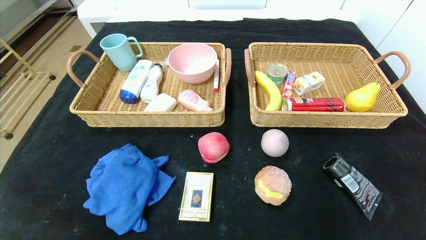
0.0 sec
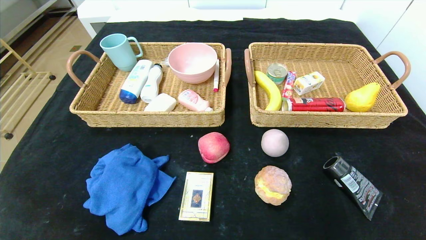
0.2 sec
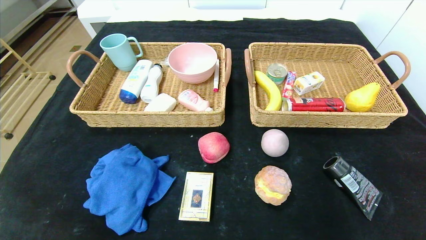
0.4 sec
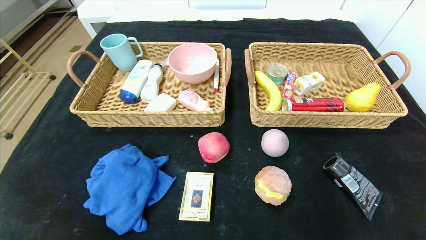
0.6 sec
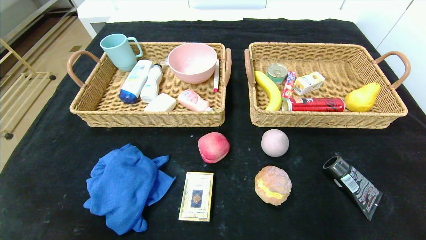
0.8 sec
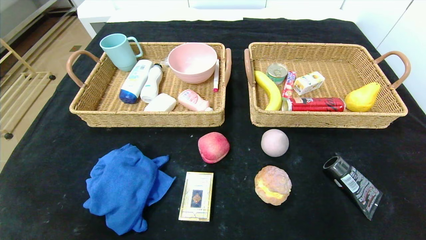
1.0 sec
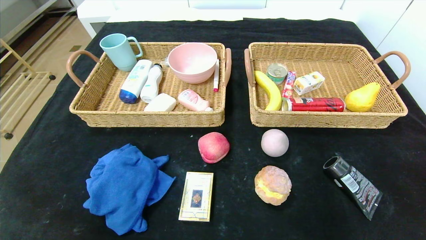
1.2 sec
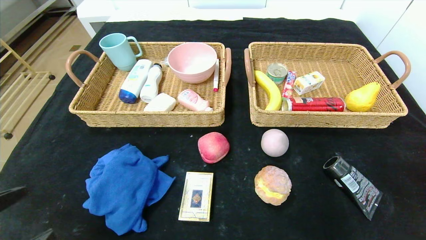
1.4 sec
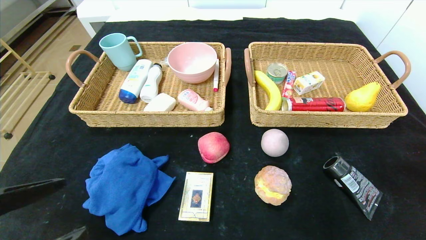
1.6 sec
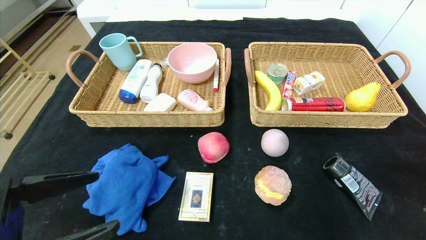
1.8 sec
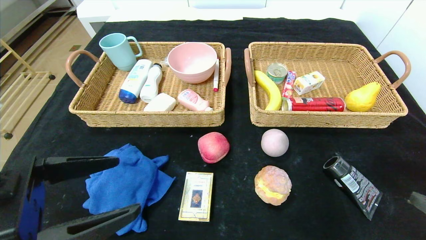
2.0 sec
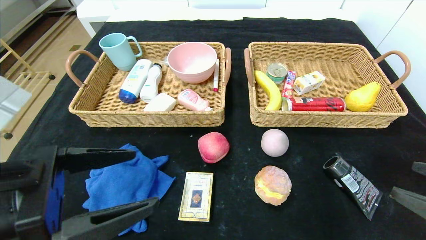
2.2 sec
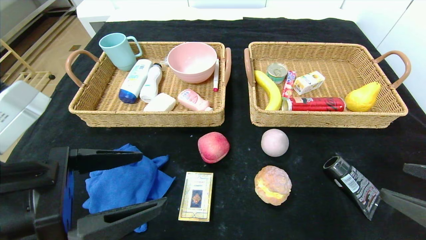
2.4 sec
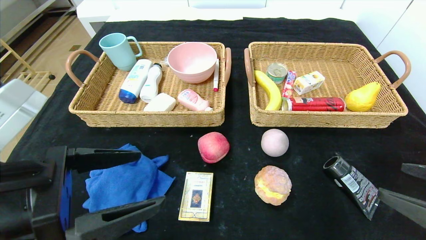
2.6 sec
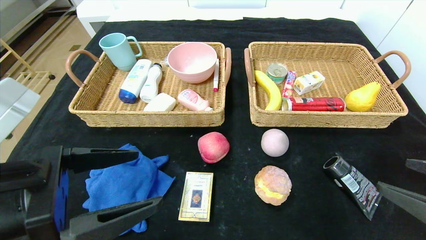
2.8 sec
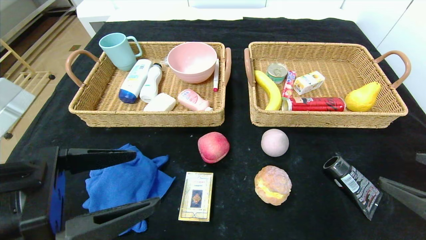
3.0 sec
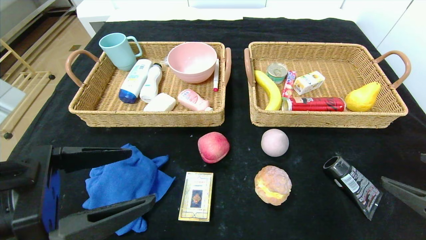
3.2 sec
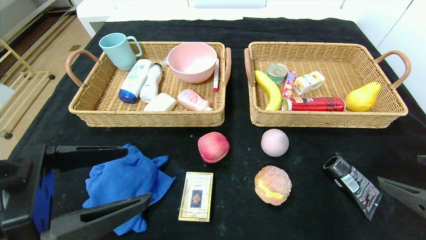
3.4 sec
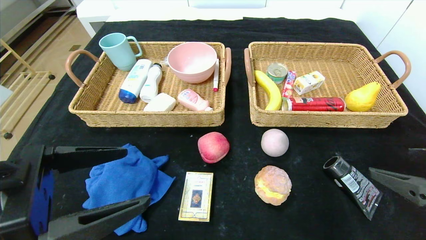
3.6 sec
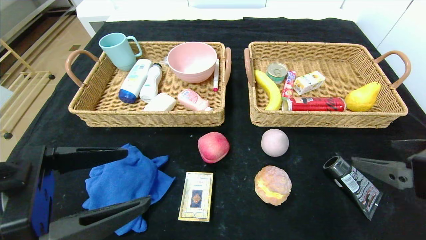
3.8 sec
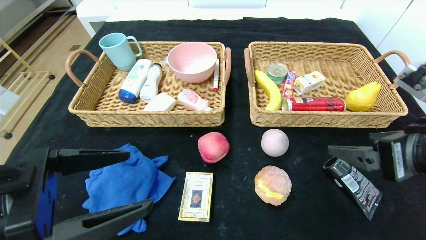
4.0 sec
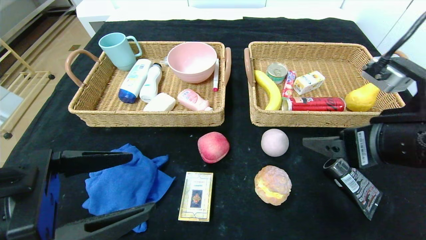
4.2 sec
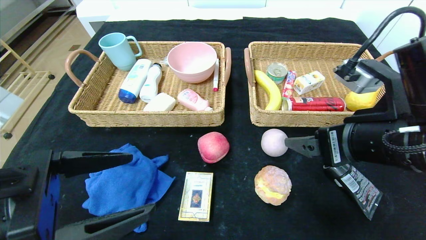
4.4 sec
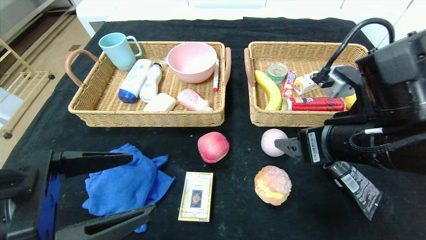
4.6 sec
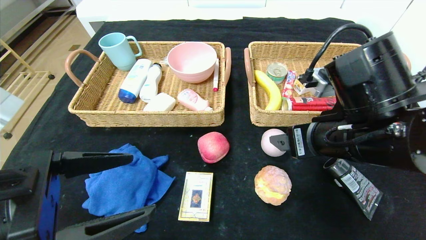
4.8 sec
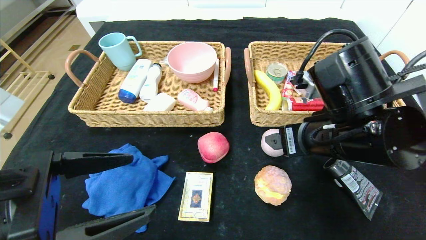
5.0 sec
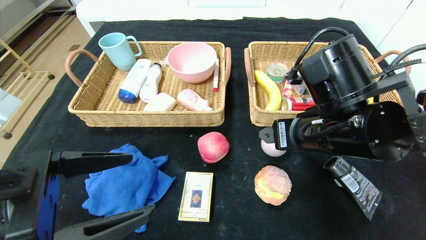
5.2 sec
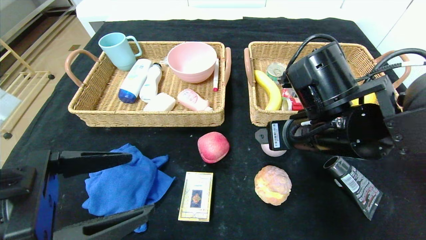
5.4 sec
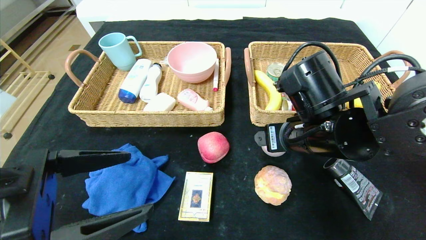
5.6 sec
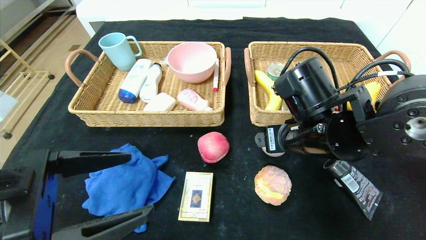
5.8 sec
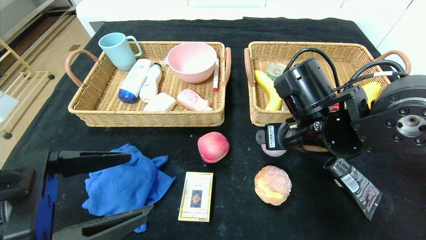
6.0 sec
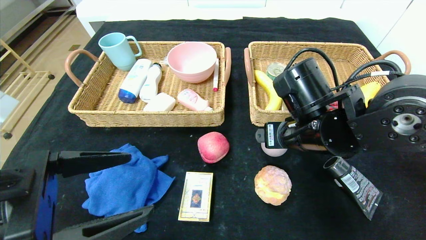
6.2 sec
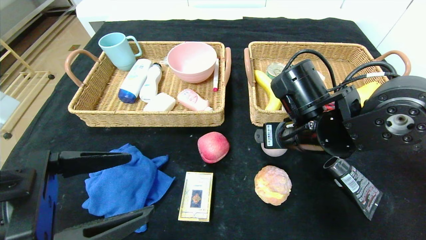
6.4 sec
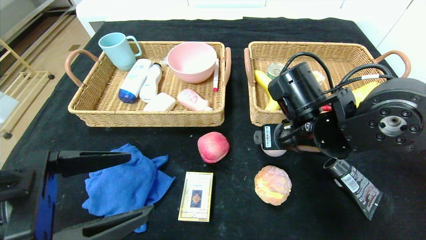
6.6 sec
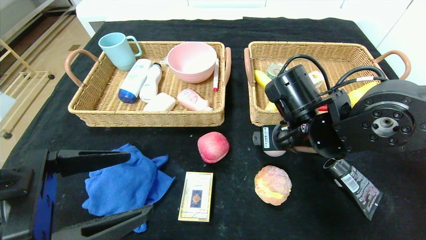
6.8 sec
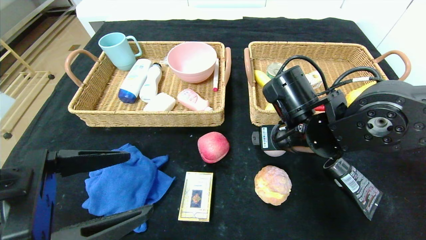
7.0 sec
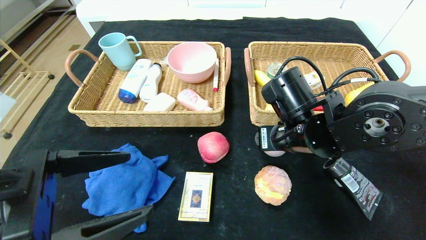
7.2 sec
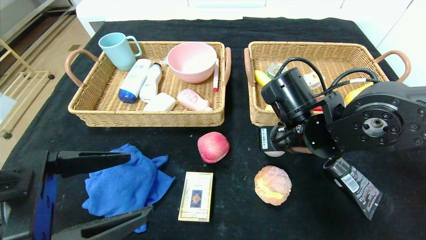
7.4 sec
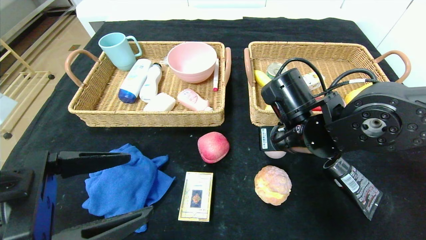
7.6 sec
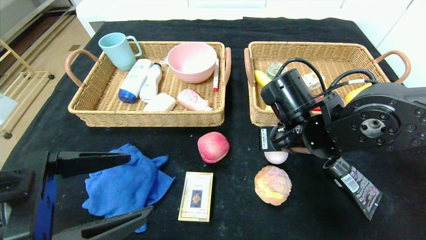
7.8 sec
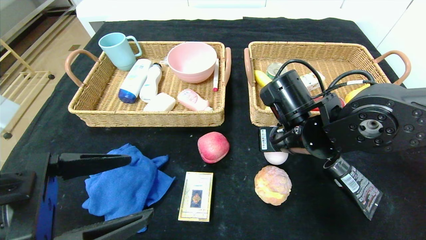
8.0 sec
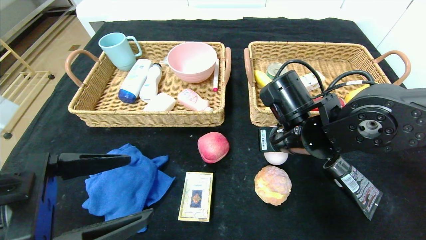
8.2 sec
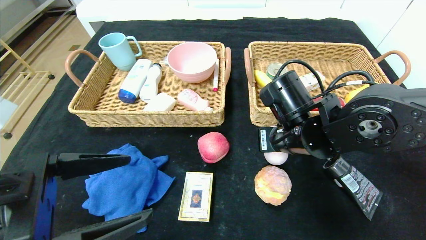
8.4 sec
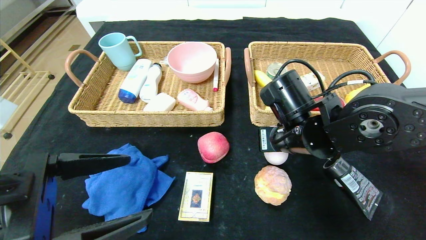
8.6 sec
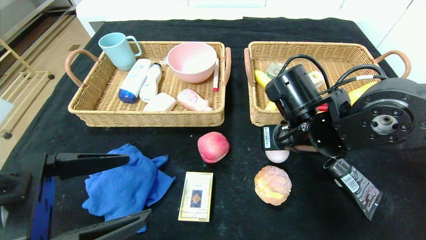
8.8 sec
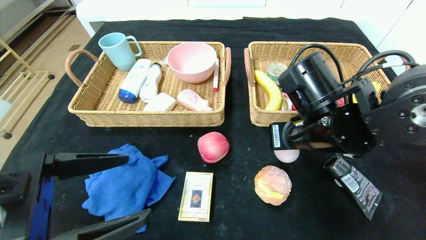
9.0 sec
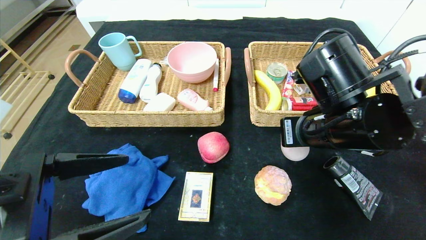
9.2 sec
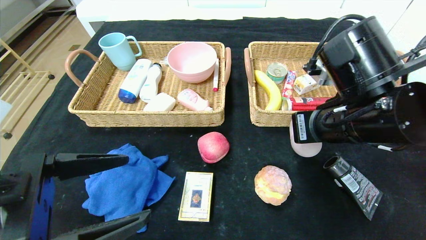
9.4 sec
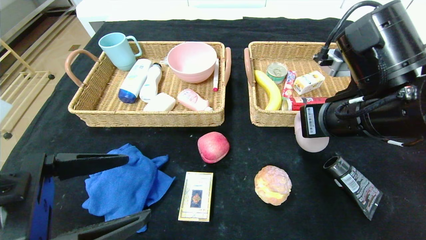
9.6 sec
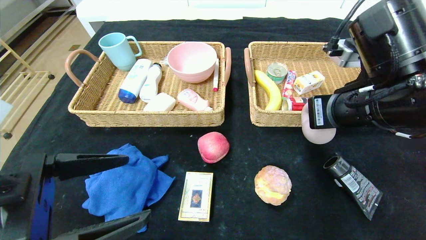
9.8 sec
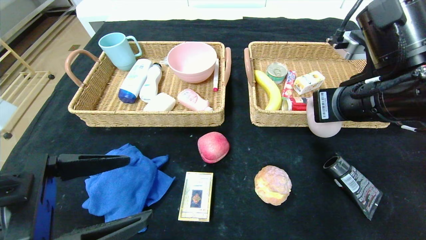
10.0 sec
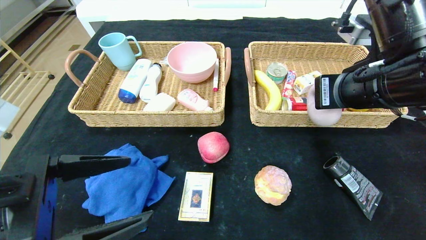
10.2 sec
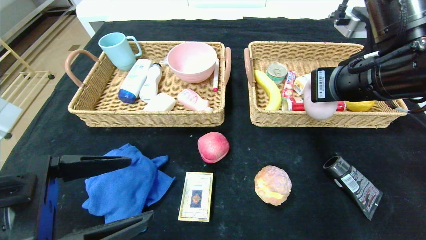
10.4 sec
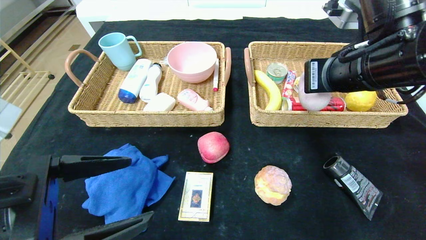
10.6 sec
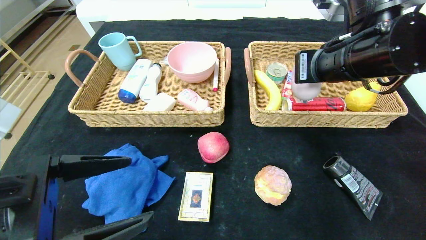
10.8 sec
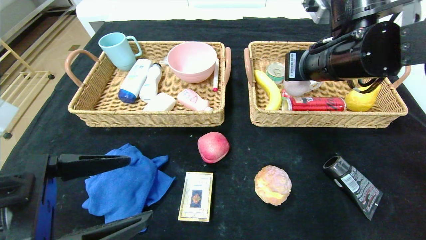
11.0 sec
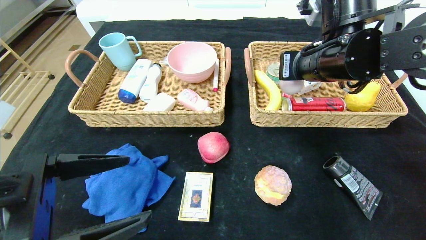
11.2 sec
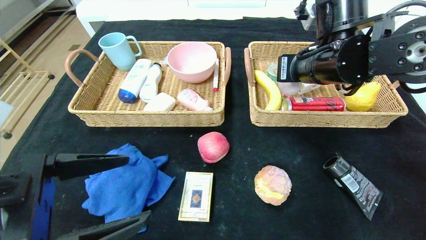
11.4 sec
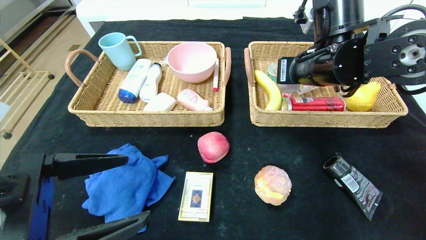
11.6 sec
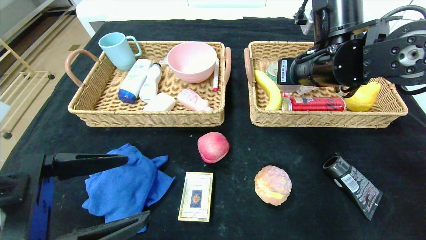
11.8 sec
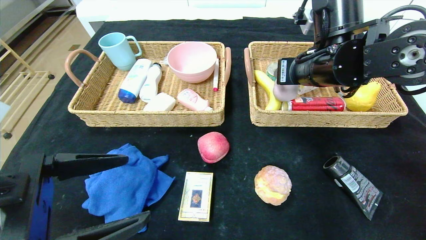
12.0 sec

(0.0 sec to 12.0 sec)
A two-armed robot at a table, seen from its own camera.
0.0 sec - 1.6 sec: Both grippers move upward and forward, approximately 15 cm.
1.6 sec - 3.0 sec: Both grippers travel together forward, roughly 5 cm.
3.0 sec - 4.4 sec: The right gripper is displaced to the left and forward by some 15 cm.
4.4 sec - 6.0 sec: The right gripper is displaced forward and to the left by approximately 10 cm.
6.0 sec - 7.6 sec: The right gripper closes its fingers.
7.6 sec - 9.0 sec: The grippers stay close to where they were, moving slightly.
9.0 sec - 10.4 sec: The right gripper travels upward by about 10 cm.
10.4 sec - 12.0 sec: The right gripper travels forward by approximately 10 cm, and opens up.

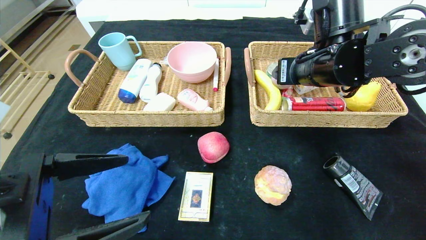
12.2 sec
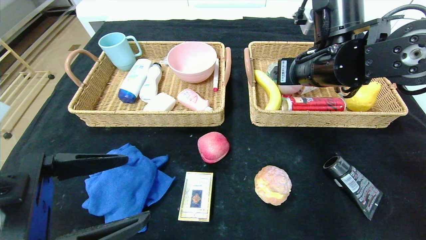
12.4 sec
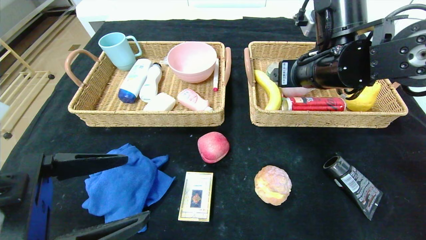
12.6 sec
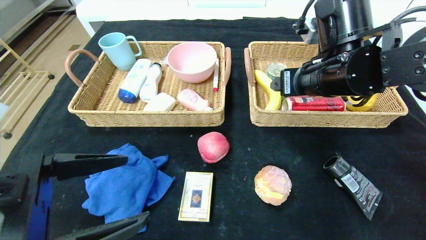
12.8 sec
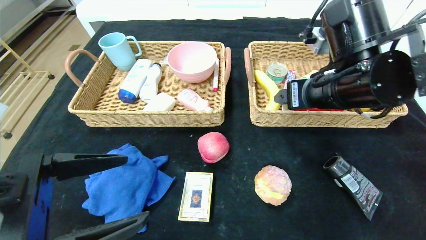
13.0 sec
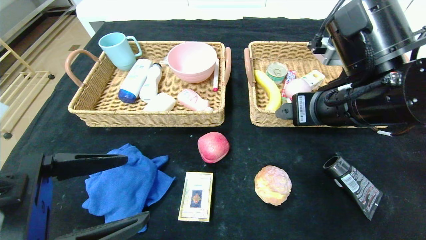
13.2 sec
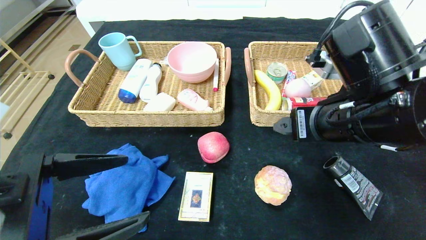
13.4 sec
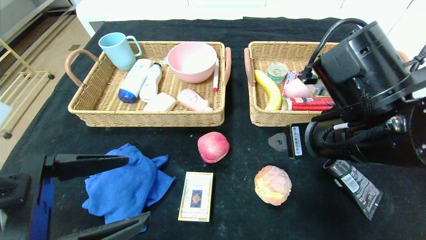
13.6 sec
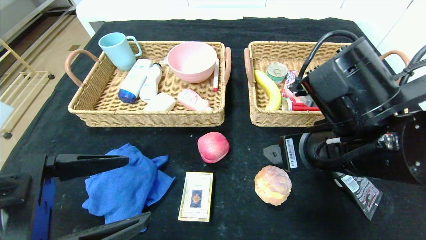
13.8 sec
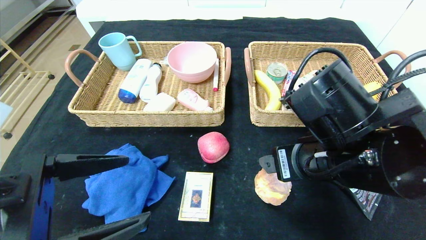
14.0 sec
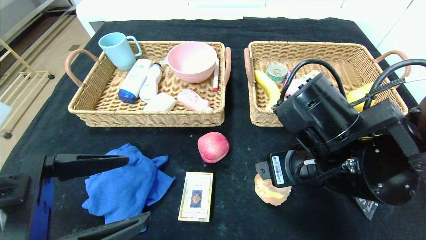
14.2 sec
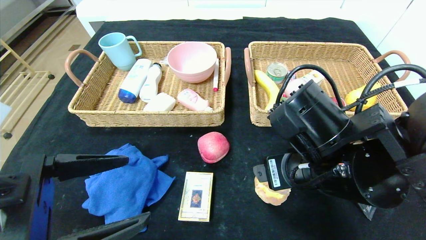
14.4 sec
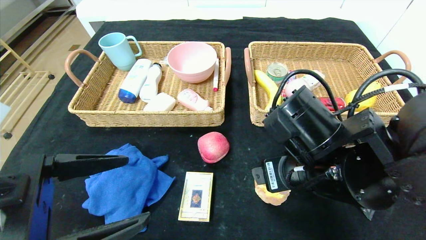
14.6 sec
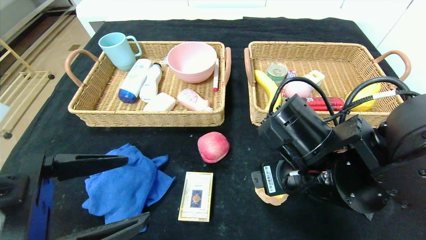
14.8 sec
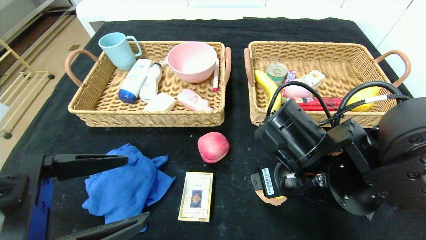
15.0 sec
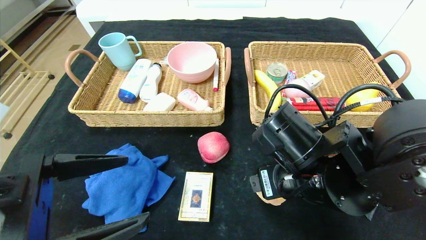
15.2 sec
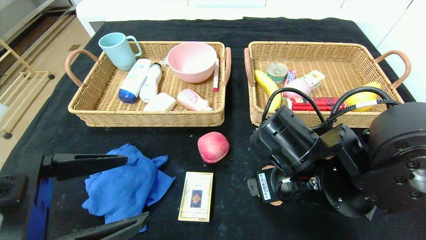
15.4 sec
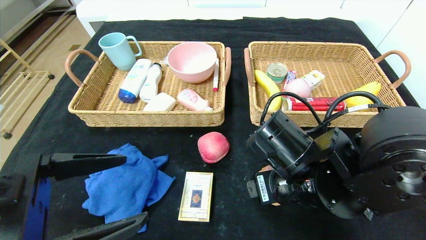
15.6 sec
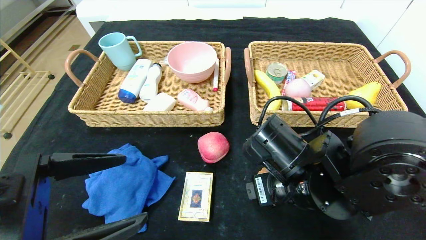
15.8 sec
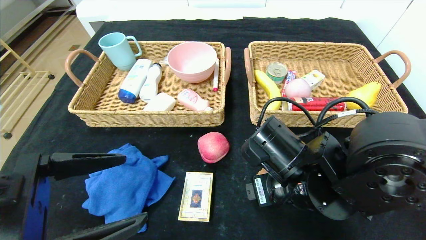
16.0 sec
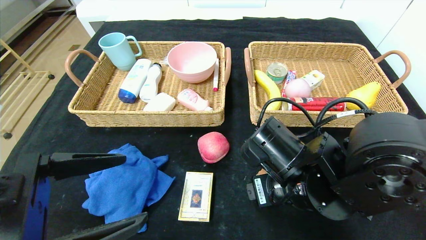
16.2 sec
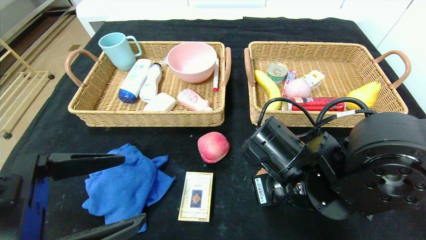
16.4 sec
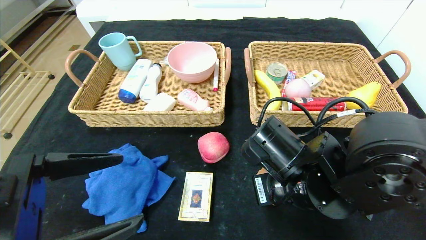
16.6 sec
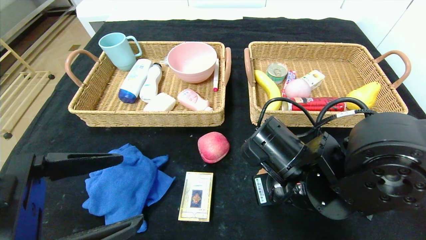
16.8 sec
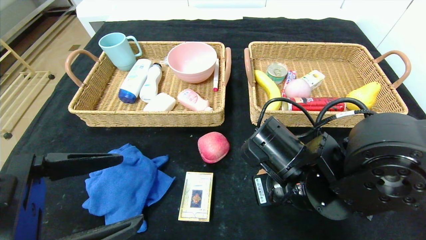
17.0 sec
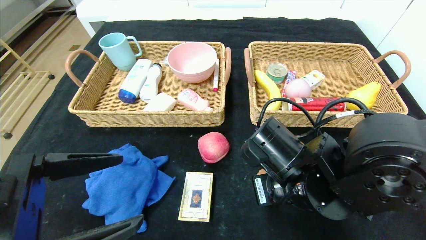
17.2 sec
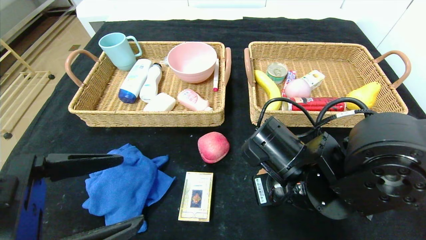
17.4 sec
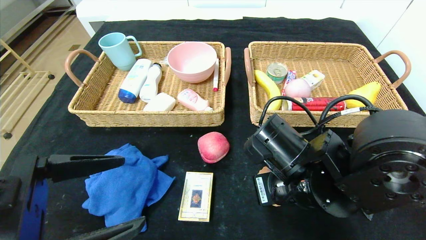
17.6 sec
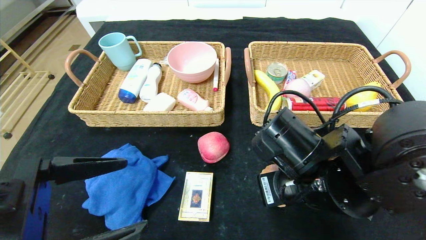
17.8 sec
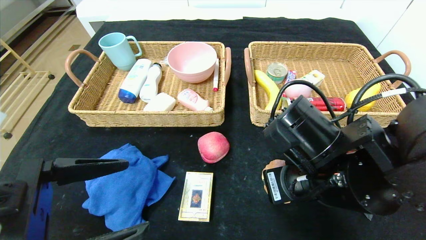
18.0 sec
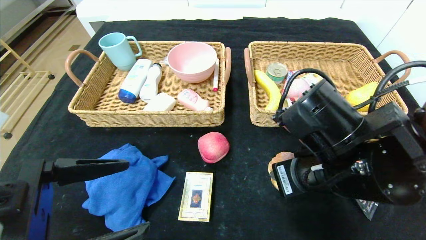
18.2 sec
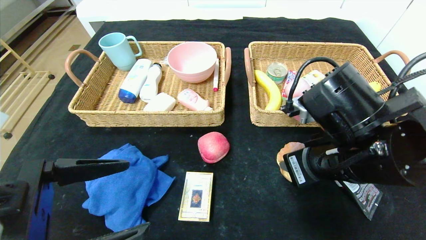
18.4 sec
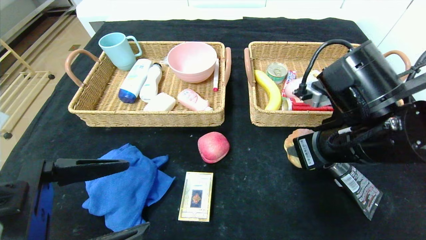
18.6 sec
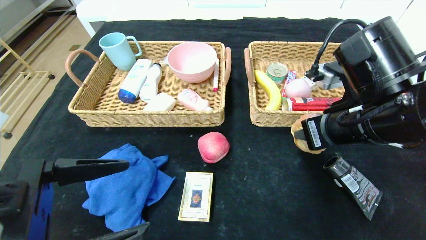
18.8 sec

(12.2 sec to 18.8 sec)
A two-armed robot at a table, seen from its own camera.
12.2 sec - 13.8 sec: The right gripper heads backward and downward, covering some 15 cm.
13.8 sec - 15.4 sec: The right gripper goes about 5 cm downward.
15.4 sec - 17.2 sec: The right gripper closes its fingers.
17.2 sec - 18.8 sec: The right gripper moves upward and to the right, approximately 10 cm.
